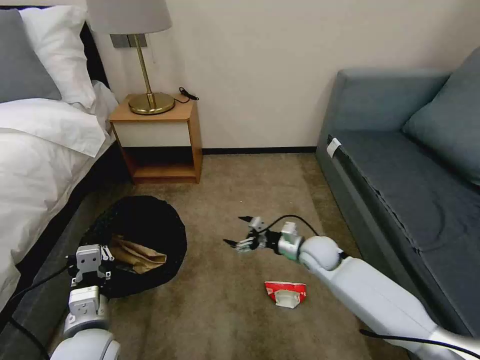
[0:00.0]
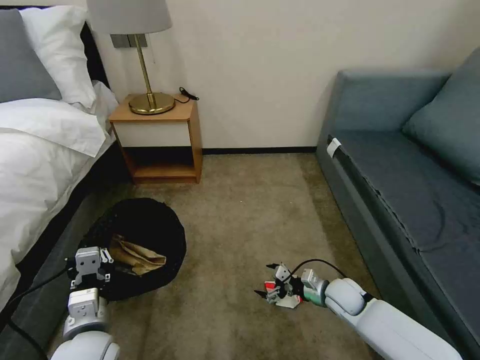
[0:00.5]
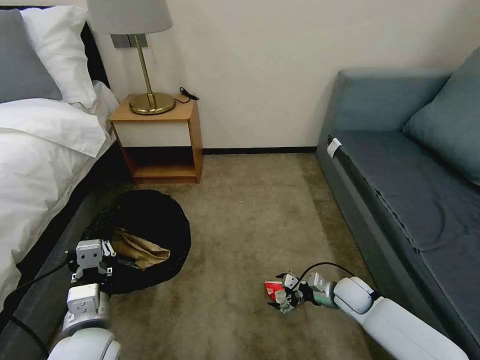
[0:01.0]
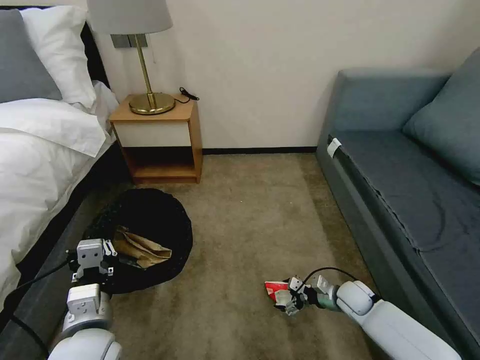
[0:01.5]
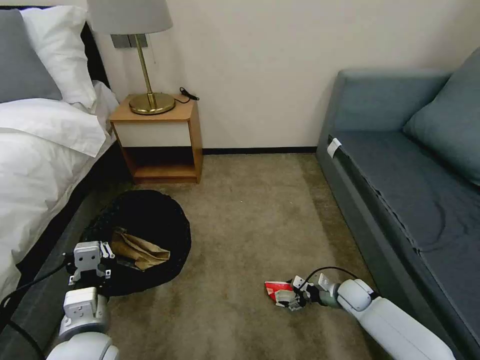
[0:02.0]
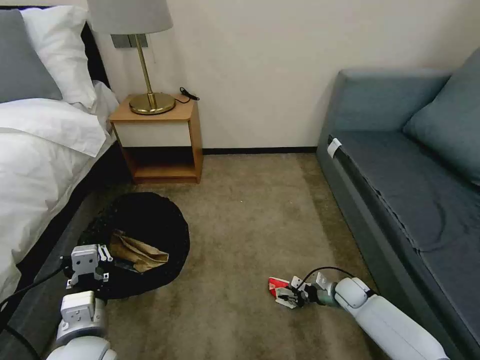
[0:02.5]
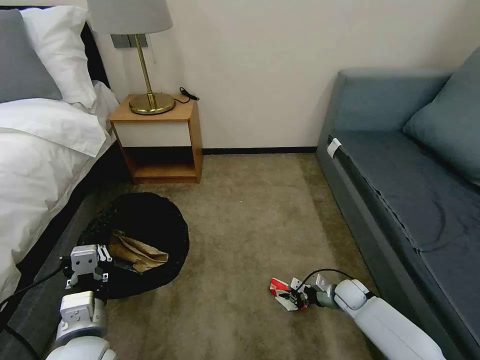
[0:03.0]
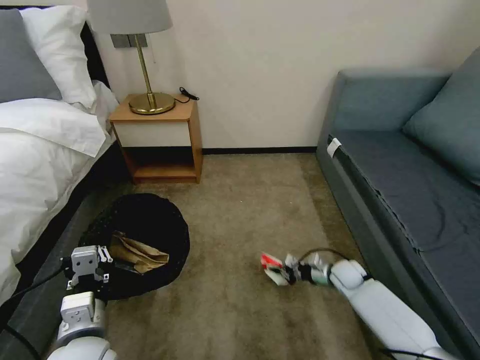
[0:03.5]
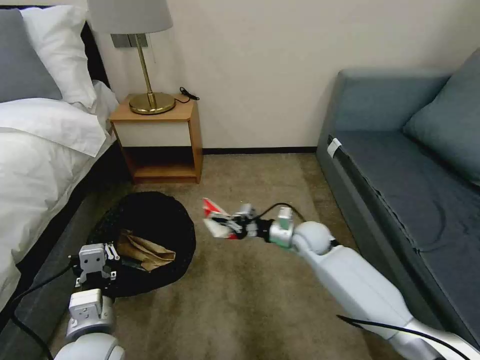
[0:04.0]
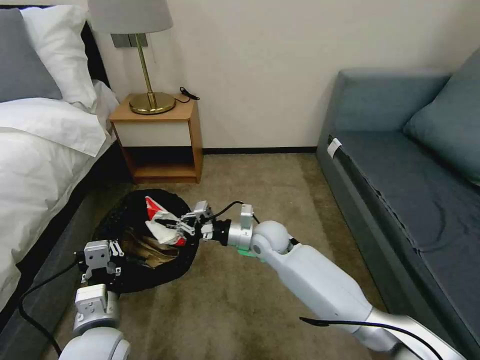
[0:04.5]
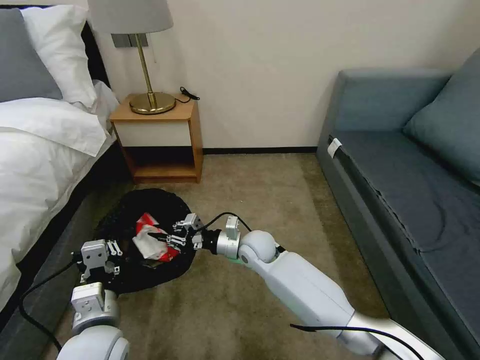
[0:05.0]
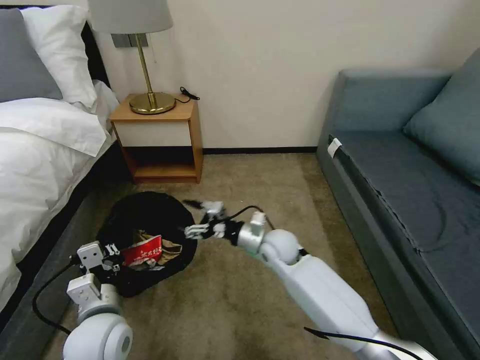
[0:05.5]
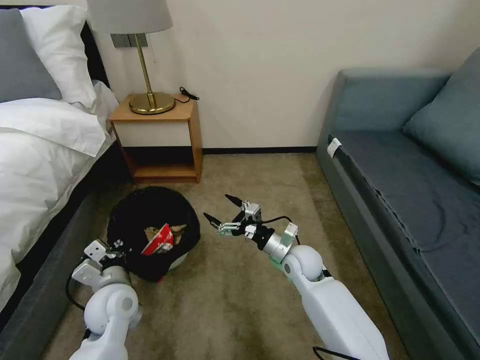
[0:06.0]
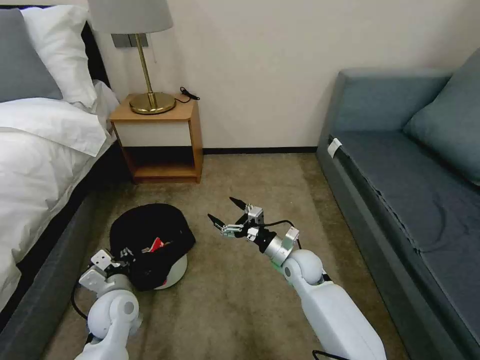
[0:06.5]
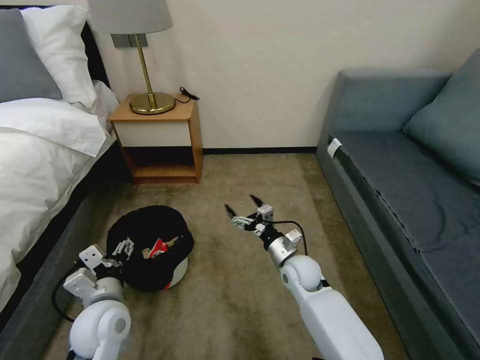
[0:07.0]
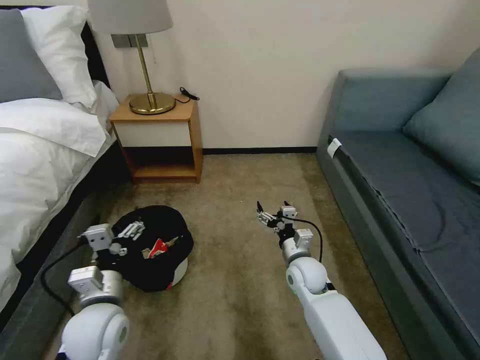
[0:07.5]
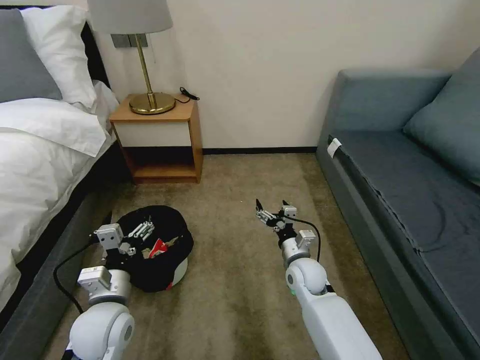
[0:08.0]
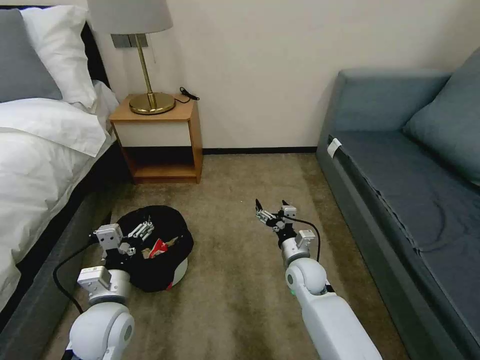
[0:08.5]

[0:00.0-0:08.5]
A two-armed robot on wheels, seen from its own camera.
Task of the whole recording: Pick up the trash bin, then pick up the garbage on the floor and place it into the trash bin.
0:00.0 to 0:02.0: The right gripper heads downward and to the right, covering approximately 20 cm.
0:02.0 to 0:04.0: The right gripper shifts roughly 25 cm upward, to the left and forward, and closes.
0:04.0 to 0:06.5: The left gripper is displaced forward and downward by roughly 15 cm. The right gripper goes approximately 5 cm backward and downward, reaches approximately 15 cm to the left, then returns, and opens up.
0:06.5 to 0:08.5: The left gripper travels upward by approximately 5 cm, and opens up.
